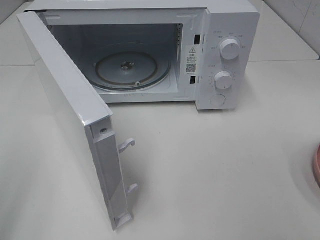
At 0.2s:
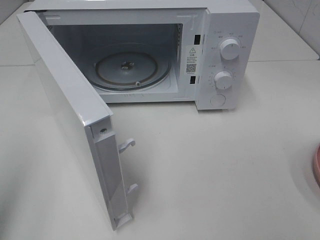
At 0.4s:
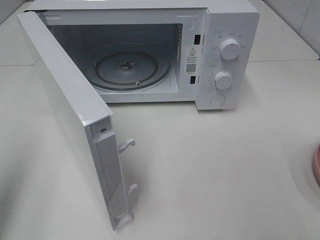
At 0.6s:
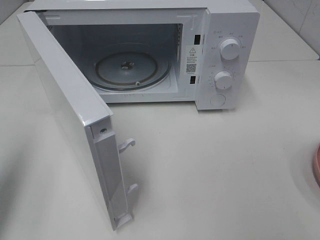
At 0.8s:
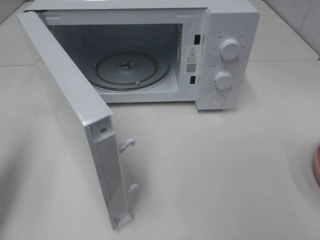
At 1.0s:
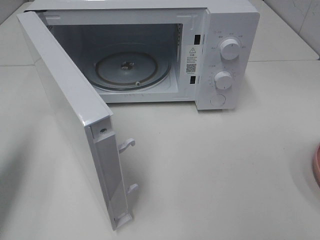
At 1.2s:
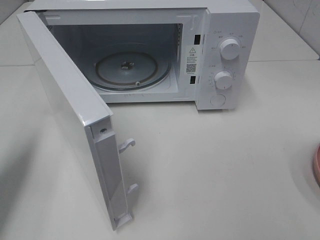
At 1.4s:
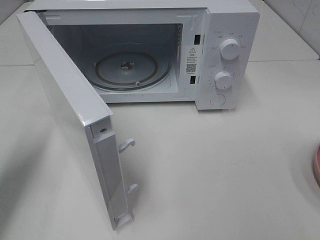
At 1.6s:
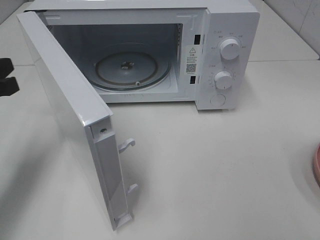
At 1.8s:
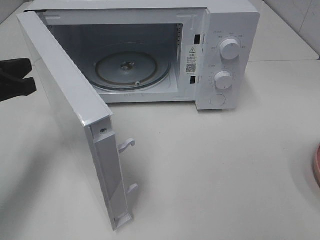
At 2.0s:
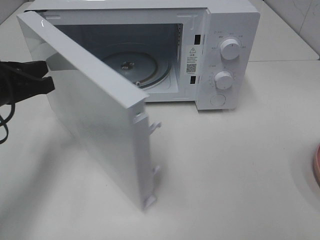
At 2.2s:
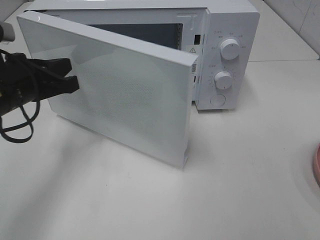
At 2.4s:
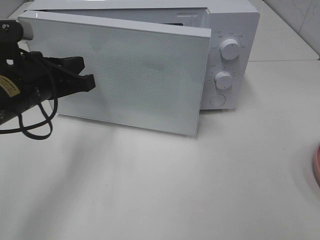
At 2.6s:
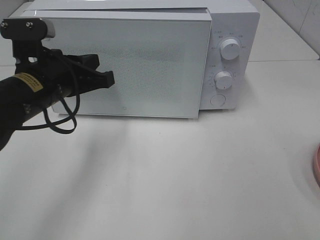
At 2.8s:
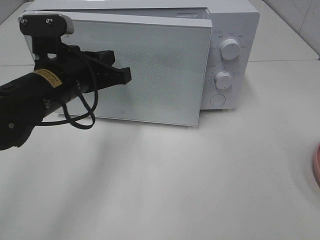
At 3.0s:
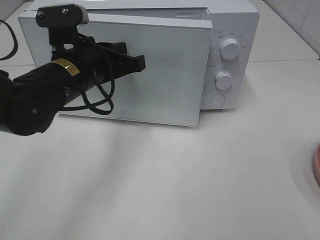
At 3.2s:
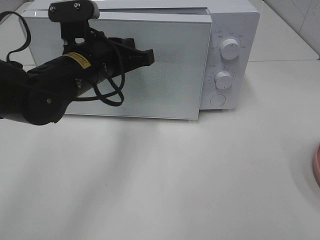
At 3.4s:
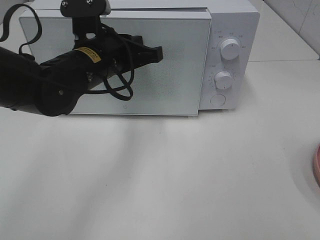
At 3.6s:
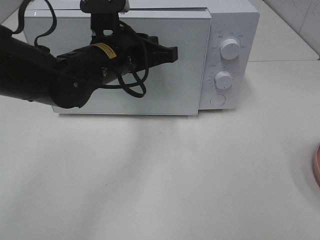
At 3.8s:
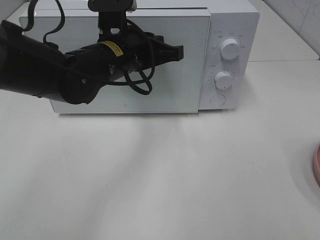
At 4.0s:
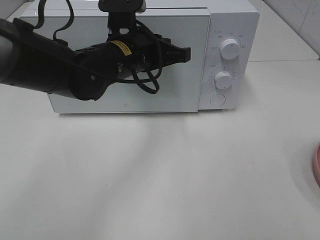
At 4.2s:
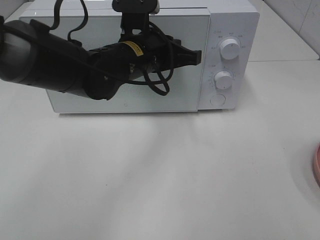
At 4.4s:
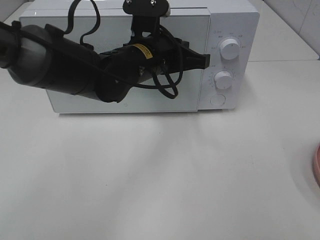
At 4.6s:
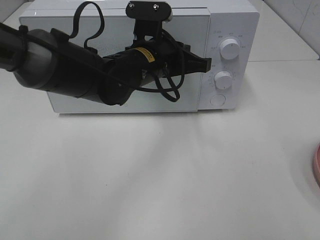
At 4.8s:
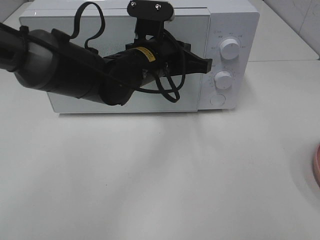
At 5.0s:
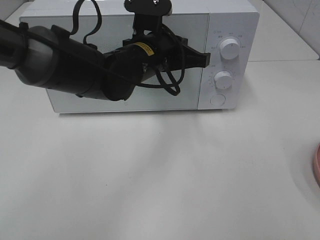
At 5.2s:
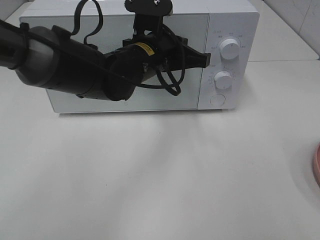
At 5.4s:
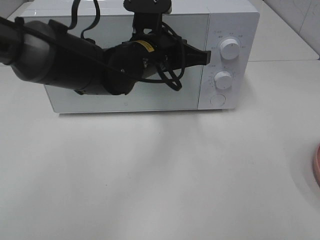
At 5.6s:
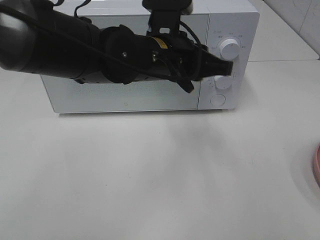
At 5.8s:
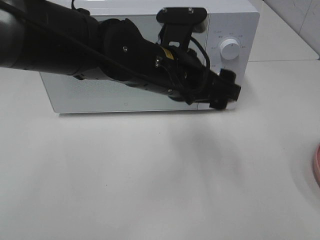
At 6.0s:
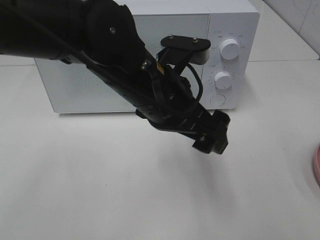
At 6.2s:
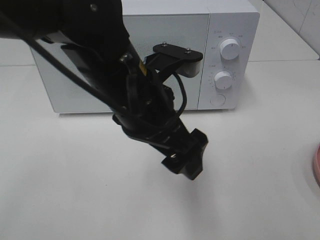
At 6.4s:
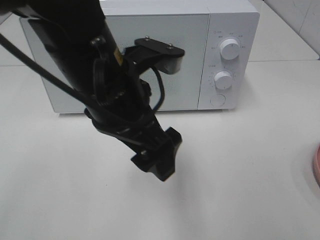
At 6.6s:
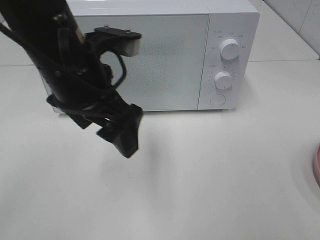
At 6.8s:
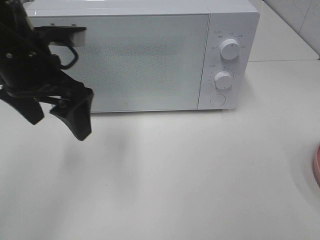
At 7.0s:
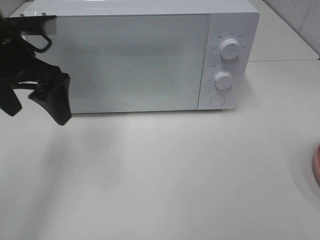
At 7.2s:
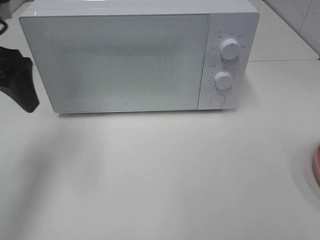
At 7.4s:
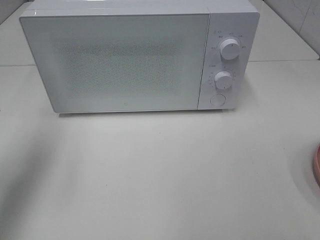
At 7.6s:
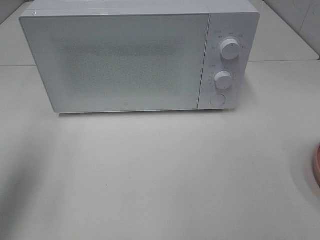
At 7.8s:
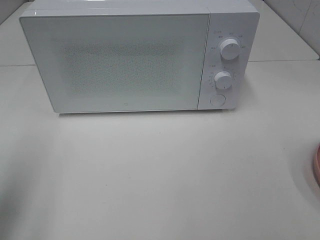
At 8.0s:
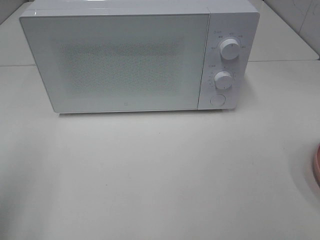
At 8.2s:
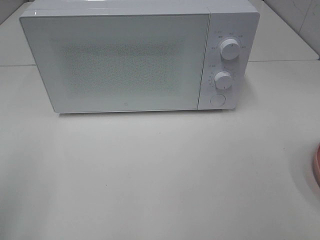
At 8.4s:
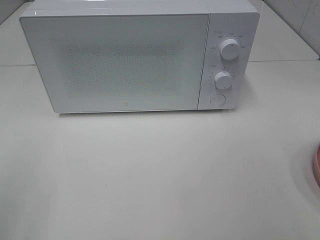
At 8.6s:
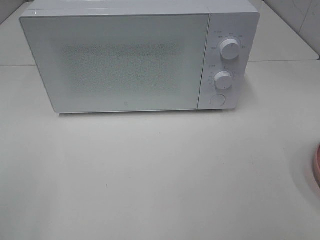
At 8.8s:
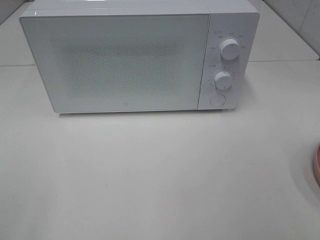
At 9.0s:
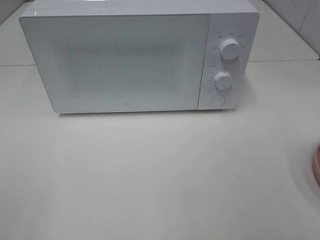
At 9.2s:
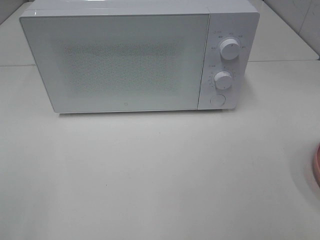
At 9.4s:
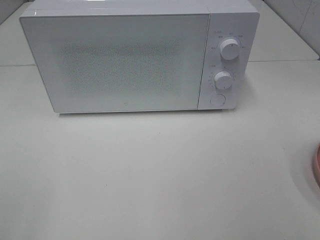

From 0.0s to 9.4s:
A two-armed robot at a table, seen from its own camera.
Task of the whole recording: Heat the burger.
Step, from 0.0s to 5.4s: Left hand: close the microwave door.
From 0.0s to 1.6s: The left gripper travels forward and downward by about 20 cm.
From 1.6s to 3.2s: The left gripper is displaced to the right by approximately 20 cm.
From 3.2s to 4.8s: The left gripper shifts approximately 10 cm to the right.
From 4.8s to 6.2s: The left gripper heads backward, covering approximately 10 cm, and opens its fingers.
From 6.2s to 7.8s: The left gripper shifts roughly 30 cm to the left.
From 7.8s to 9.4s: The left gripper heads backward, covering roughly 15 cm.

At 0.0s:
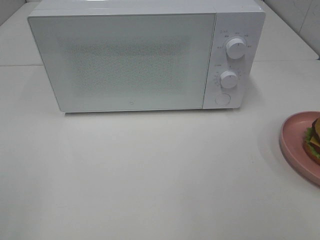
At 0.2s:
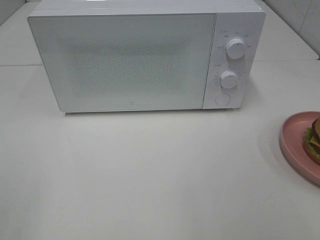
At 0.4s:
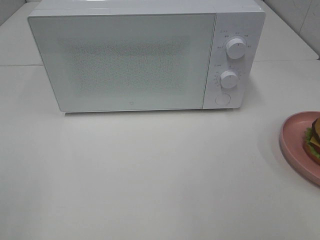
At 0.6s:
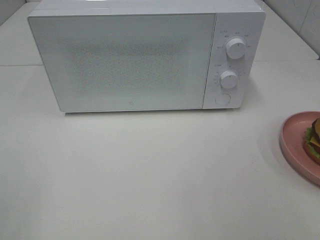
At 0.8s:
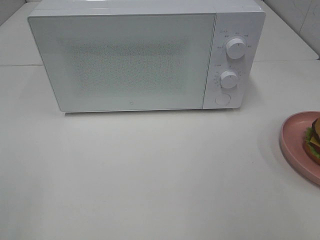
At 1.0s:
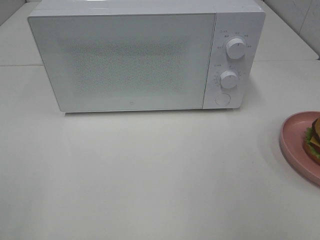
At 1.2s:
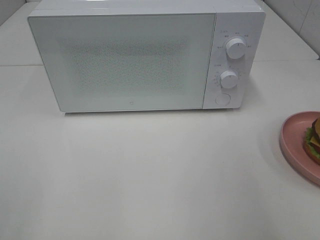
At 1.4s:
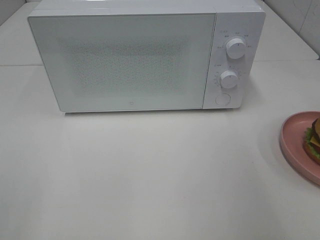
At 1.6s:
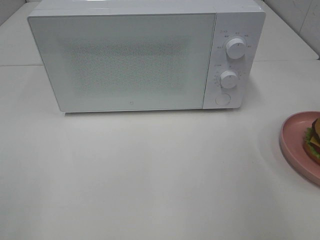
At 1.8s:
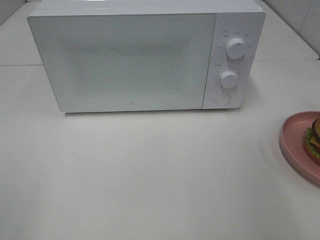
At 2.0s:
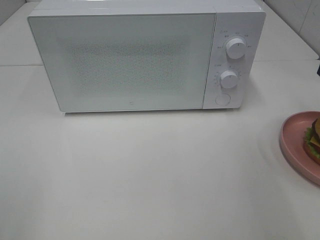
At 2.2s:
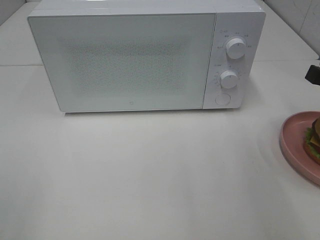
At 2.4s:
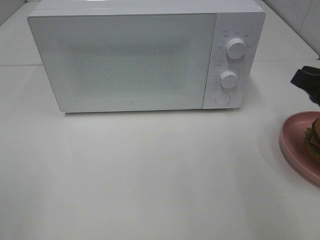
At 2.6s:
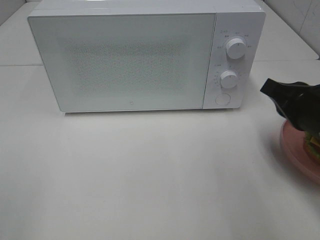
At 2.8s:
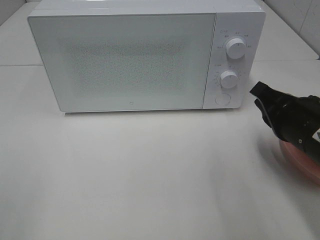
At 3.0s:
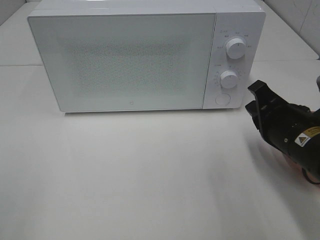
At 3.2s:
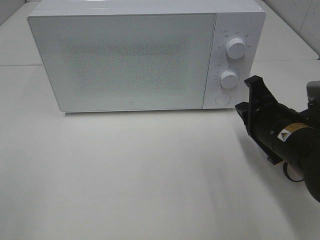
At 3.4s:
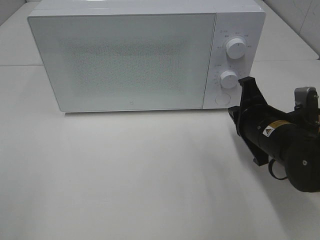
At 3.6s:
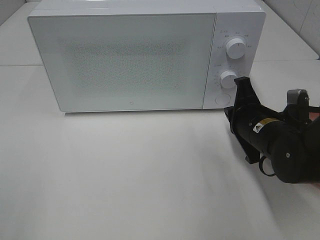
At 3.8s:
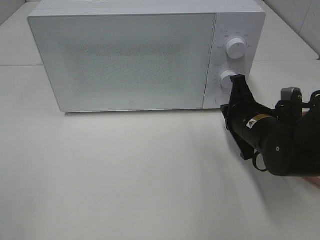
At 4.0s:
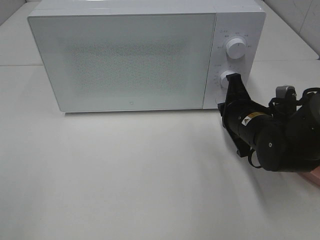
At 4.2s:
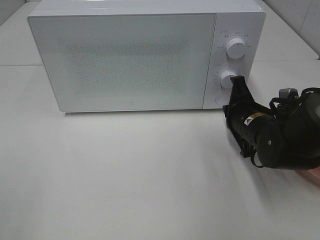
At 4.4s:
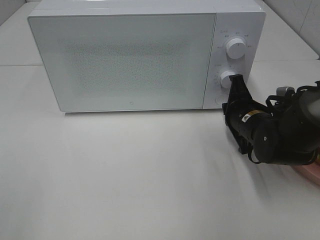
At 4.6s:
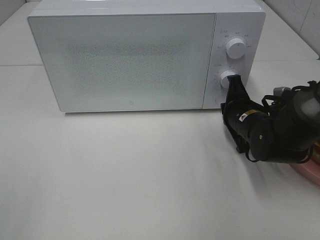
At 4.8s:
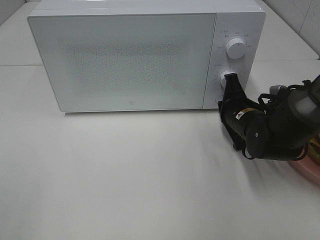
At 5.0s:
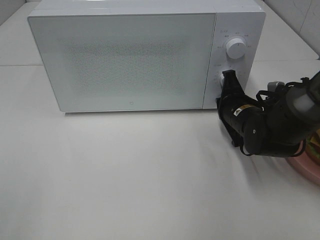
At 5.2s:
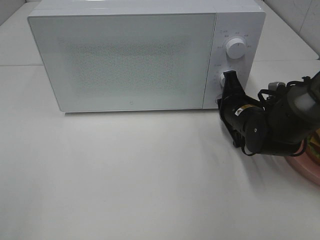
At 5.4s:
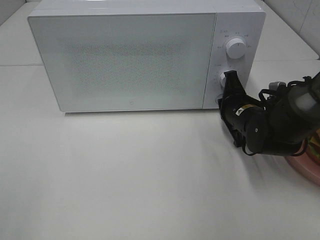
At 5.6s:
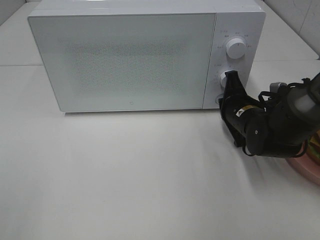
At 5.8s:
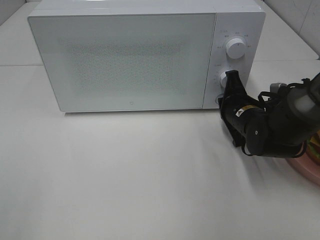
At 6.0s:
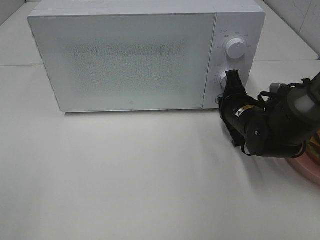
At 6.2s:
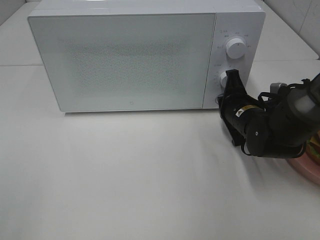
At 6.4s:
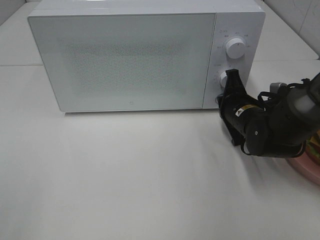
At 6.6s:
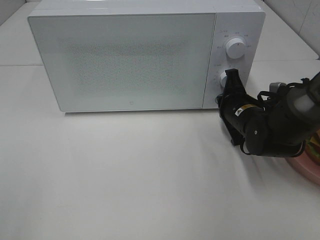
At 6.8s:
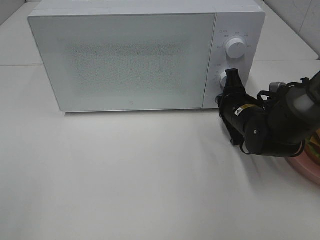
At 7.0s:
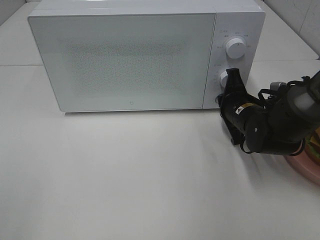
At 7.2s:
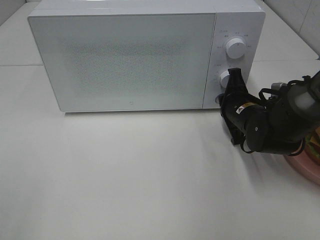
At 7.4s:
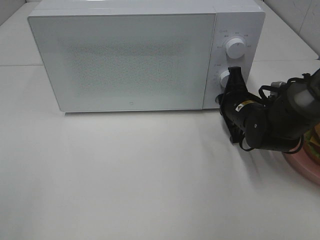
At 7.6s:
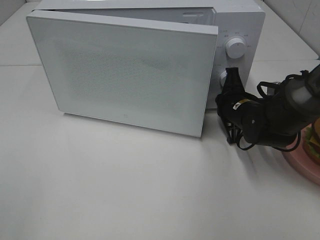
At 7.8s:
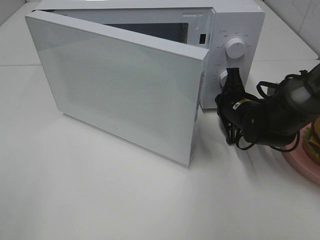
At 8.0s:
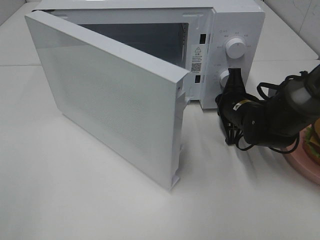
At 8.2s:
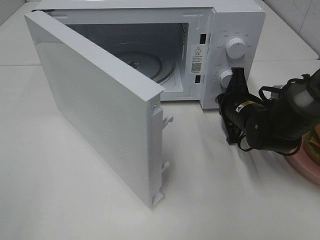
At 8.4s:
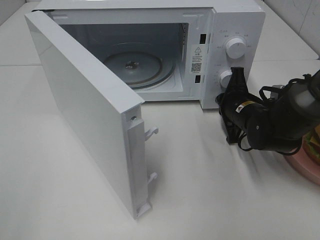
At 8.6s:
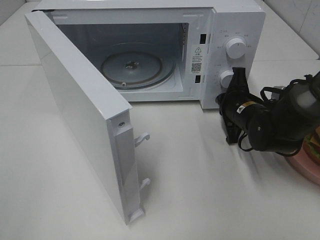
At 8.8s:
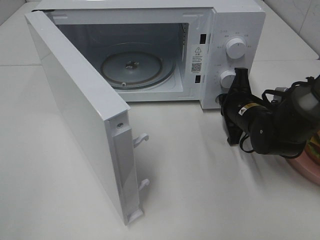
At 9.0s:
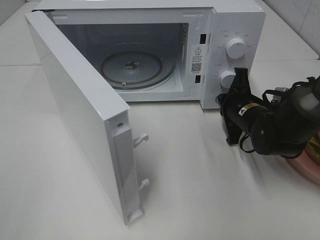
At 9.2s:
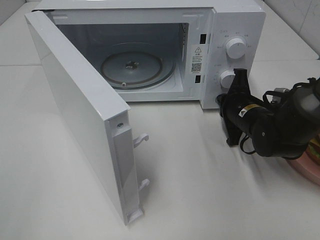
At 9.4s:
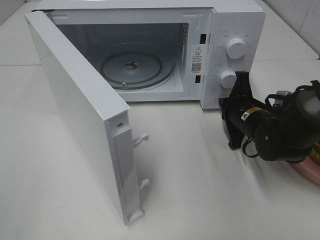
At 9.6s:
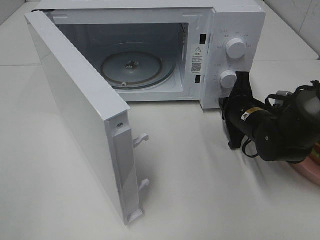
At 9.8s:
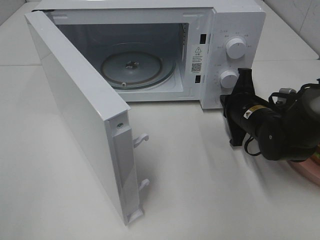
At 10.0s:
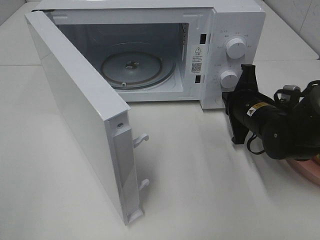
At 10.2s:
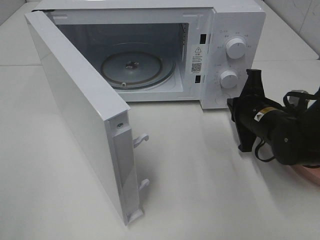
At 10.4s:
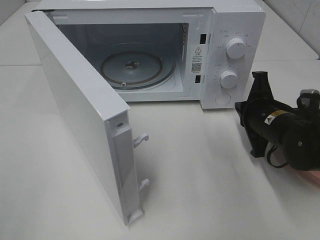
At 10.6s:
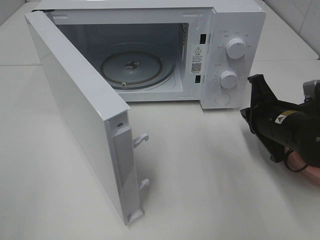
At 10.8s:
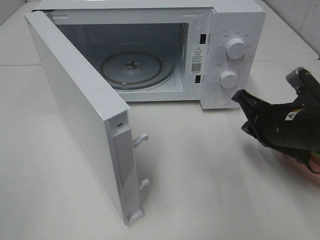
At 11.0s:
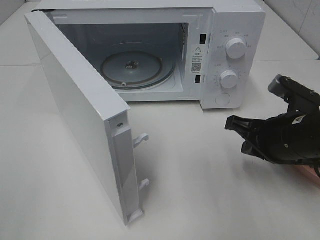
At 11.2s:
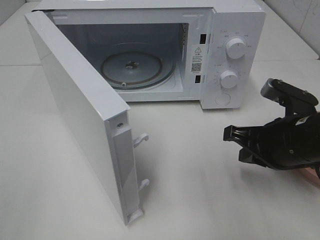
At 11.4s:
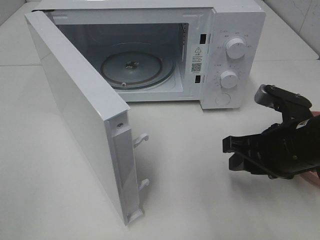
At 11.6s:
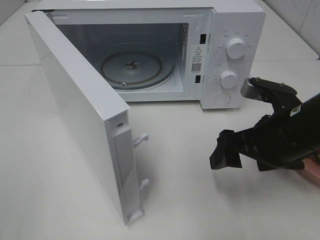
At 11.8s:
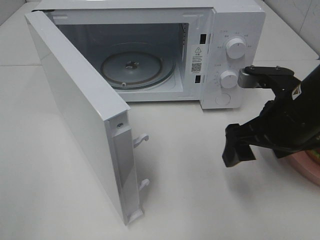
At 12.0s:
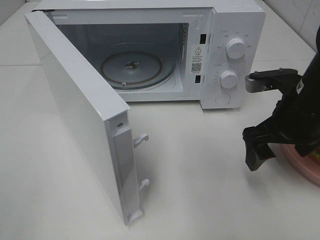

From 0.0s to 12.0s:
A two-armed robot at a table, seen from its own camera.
Task of the whole recording: Heat the burger.
Step, from 0.0s to 9.4s: Right hand: press the switch.
From 1.6s to 3.0s: The right gripper moves downward and to the left, roughly 15 cm.
From 3.0s to 4.4s: The right gripper heads forward and downward, covering roughly 10 cm.
From 4.4s to 7.6s: The grippers stay close to where they were, moving slightly.
From 9.0s to 10.4s: The right gripper shifts roughly 5 cm backward.
From 10.4s to 12.0s: The right gripper travels upward by roughly 10 cm, and opens.

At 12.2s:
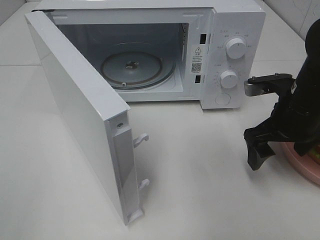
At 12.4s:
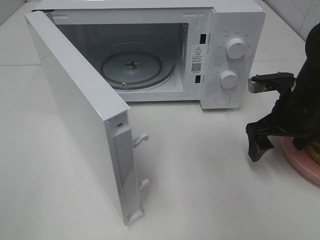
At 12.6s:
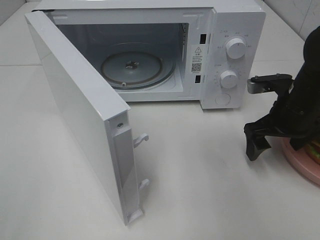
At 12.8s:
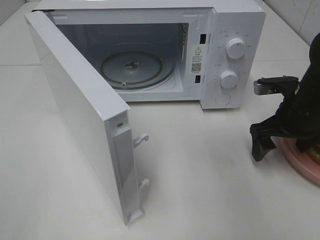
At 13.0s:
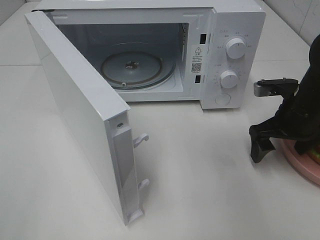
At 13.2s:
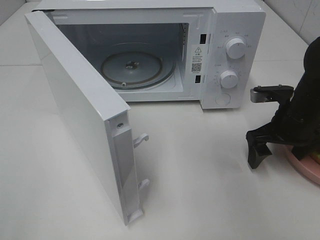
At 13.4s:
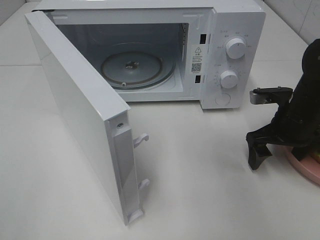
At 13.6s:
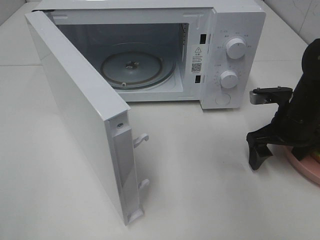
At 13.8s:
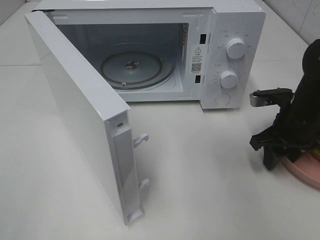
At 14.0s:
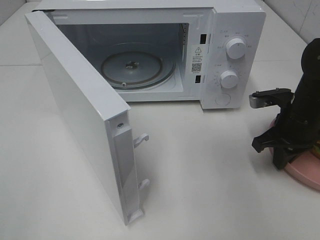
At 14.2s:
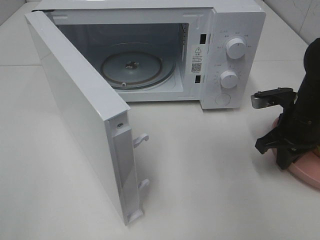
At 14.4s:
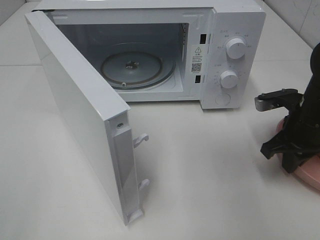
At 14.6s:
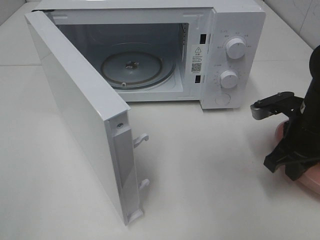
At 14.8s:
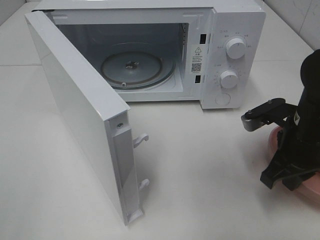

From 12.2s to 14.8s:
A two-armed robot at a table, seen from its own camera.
Task of the whole recording: Heat the burger.
Step, from 12.2s to 14.4s: Right hand: grab the plate with the hamburger.
From 12.2s to 13.4s: The right gripper changes place by approximately 5 cm.
From 13.4s to 14.8s: The right gripper goes some 5 cm backward, and closes up.
